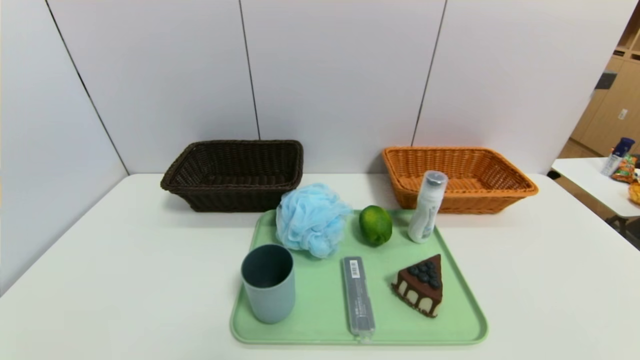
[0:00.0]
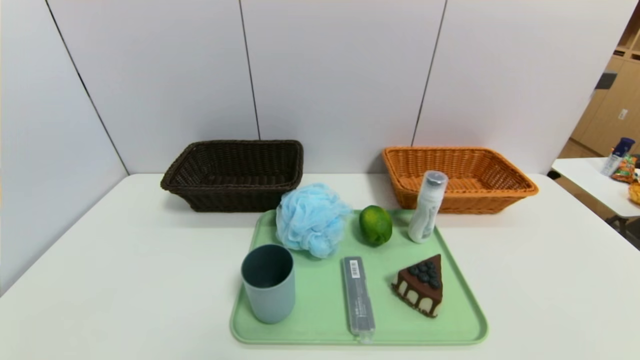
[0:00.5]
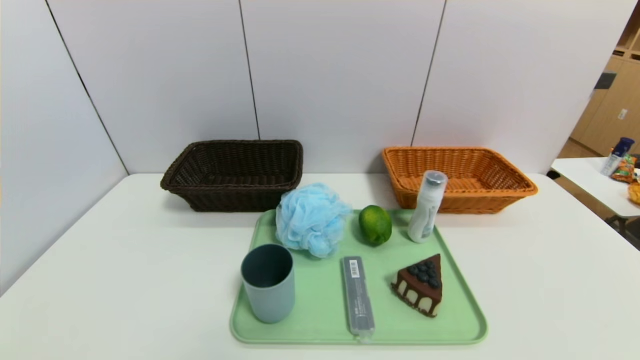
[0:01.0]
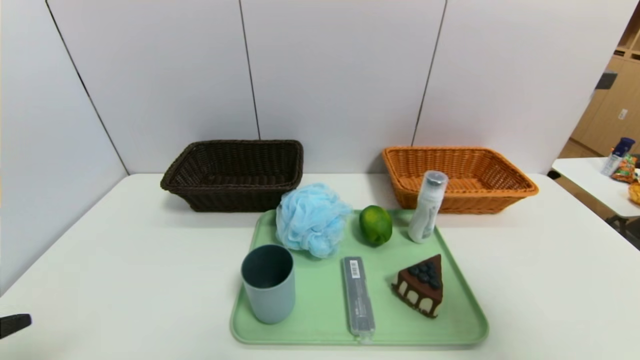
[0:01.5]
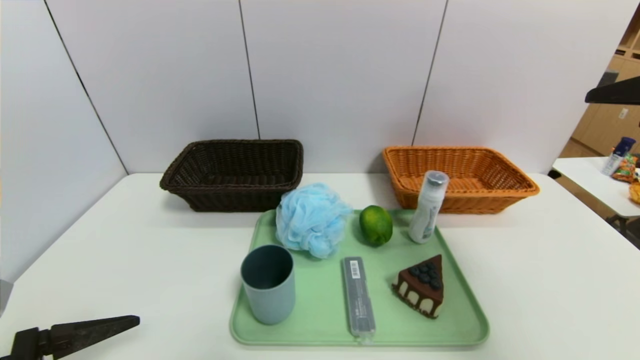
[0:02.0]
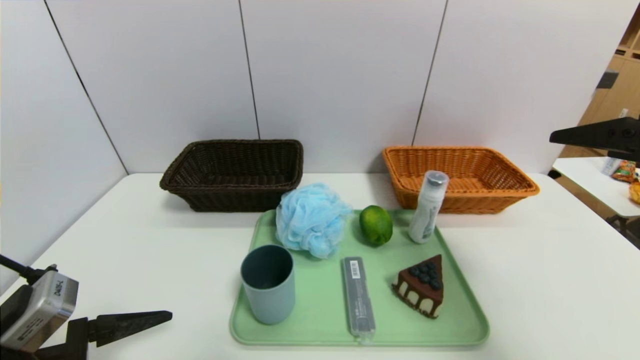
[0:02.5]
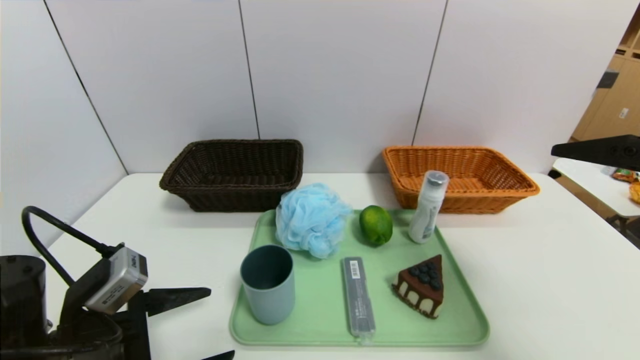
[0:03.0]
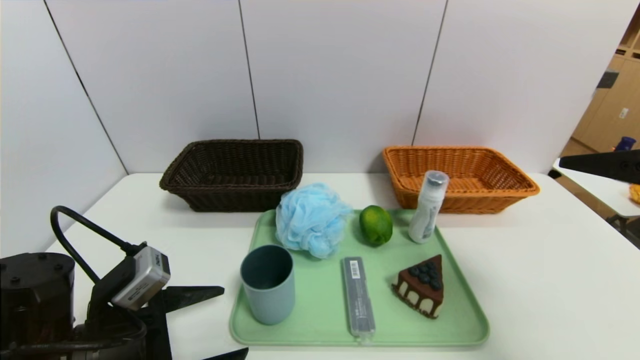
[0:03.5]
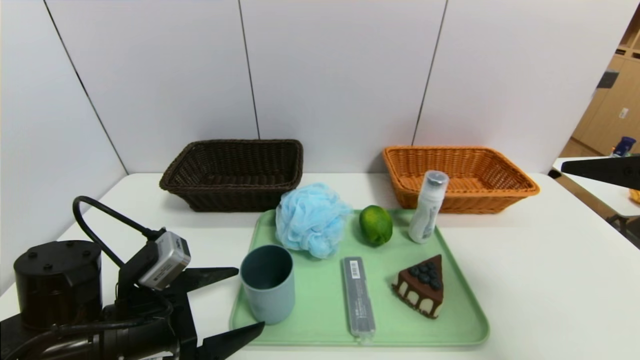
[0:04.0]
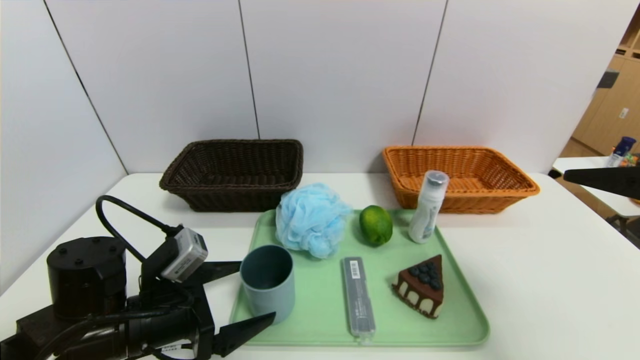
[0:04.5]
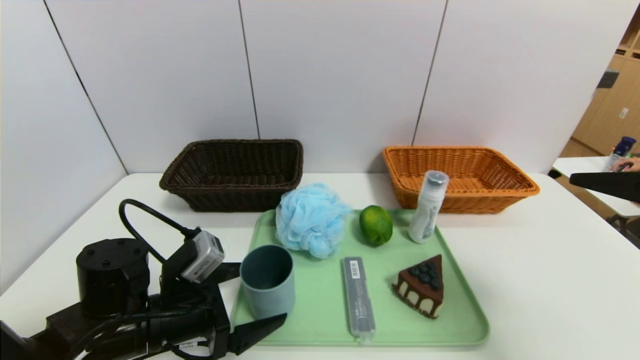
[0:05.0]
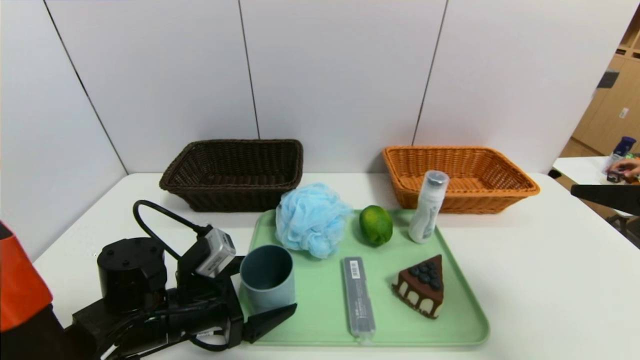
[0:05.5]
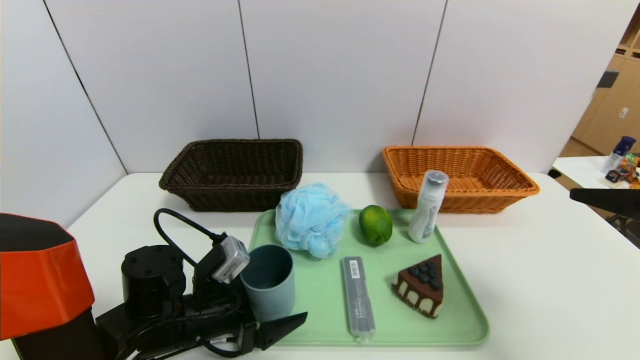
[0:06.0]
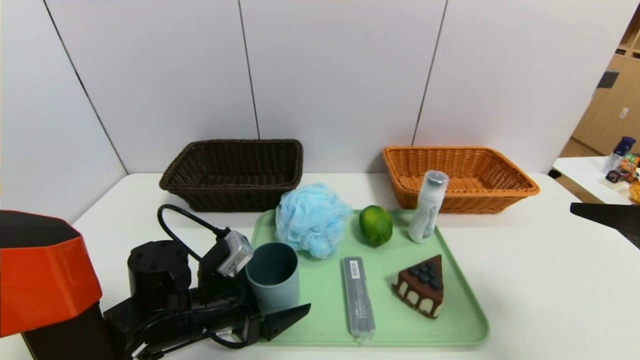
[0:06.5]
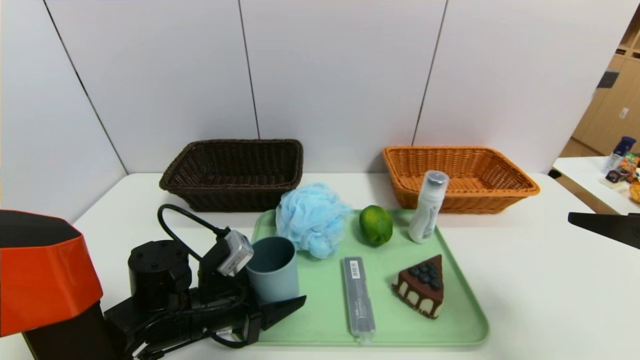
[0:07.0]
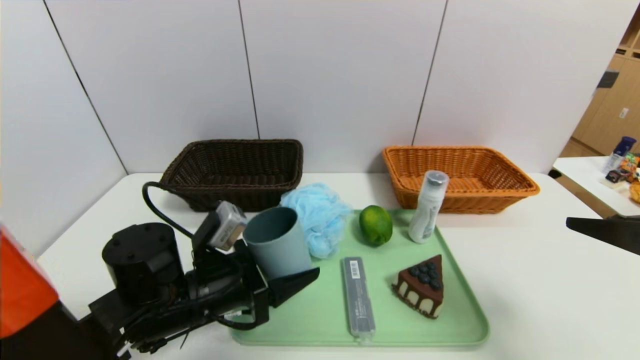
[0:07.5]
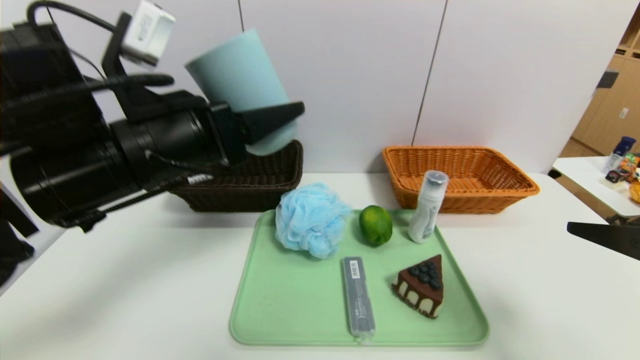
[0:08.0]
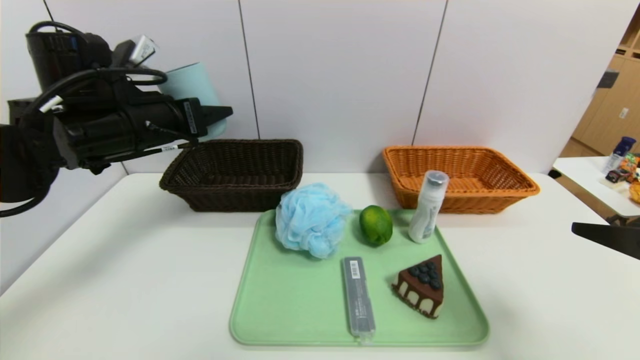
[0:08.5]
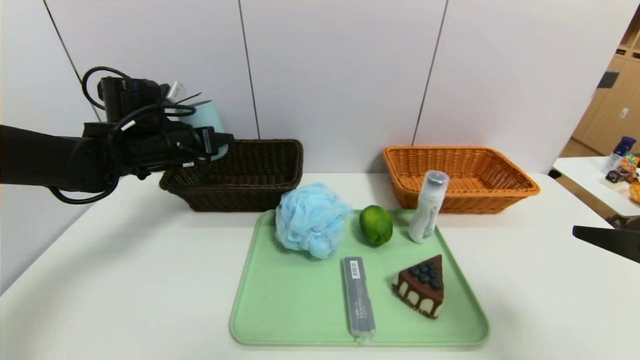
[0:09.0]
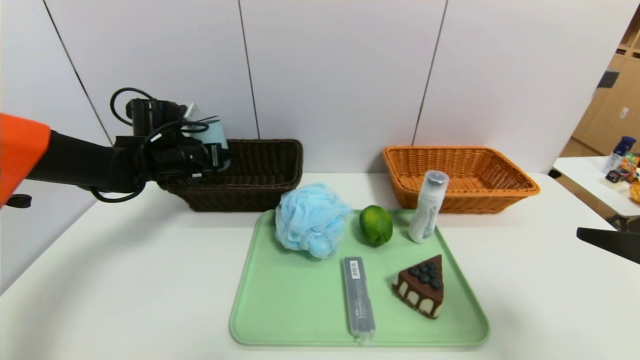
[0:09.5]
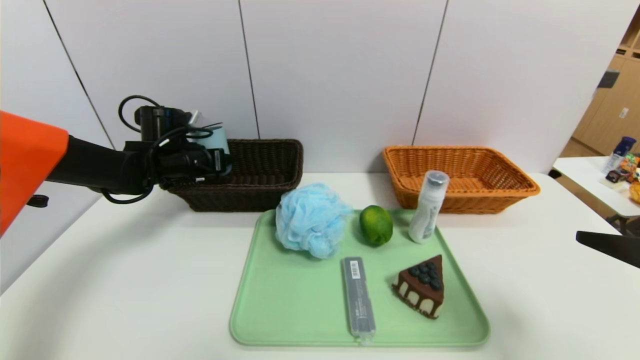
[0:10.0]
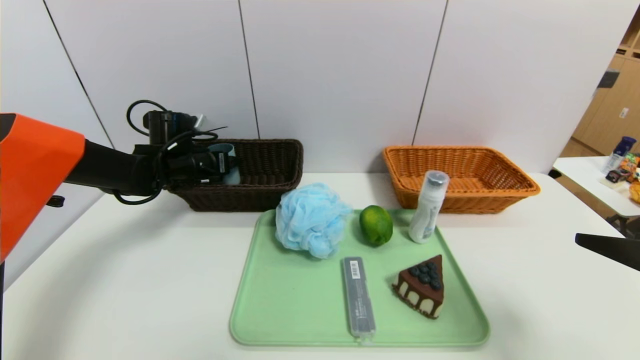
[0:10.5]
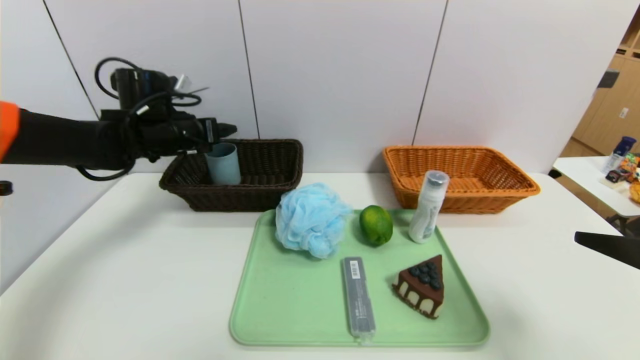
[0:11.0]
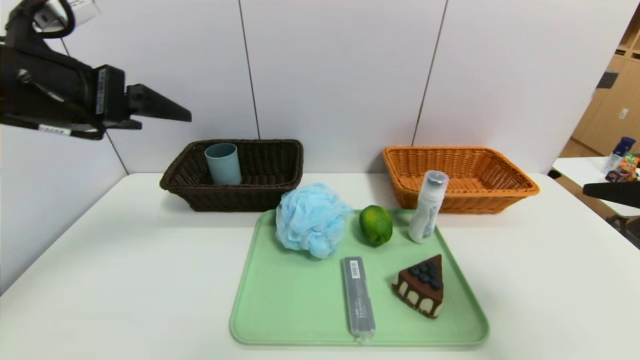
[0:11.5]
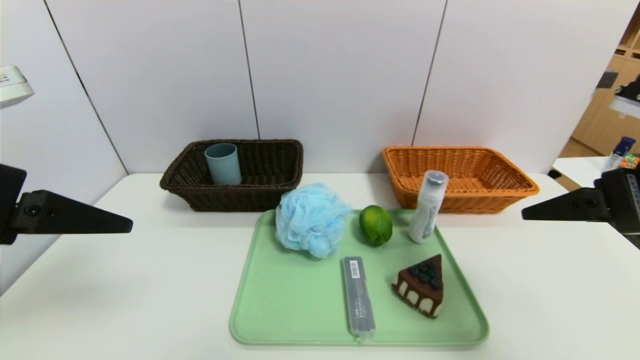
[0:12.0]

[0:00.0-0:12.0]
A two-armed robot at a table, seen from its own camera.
Task of the whole recording: place the food in the right basket with the right gripper, and place the non food items in the left basket with the left gripper.
Step, 0:00.0 to 0:10.5: Grasp the blue cup and put it in the left basket.
0:00.0 to 0:02.0: The right gripper moves upward and forward, about 35 cm. The left gripper is displaced forward and upward by approximately 10 cm.
0:02.0 to 0:04.0: The left gripper shifts about 10 cm forward and to the right, while the right gripper is displaced downward by approximately 5 cm.
0:04.0 to 0:06.0: The left gripper ends up some 10 cm from where it was.
0:06.0 to 0:08.0: The left gripper moves upward, approximately 25 cm, and closes its fingers.
0:08.0 to 0:10.0: The left gripper is displaced forward, downward and to the left by some 25 cm.
0:10.0 to 0:12.0: The right gripper moves forward, about 5 cm; the left gripper travels backward and upward by about 35 cm, and opens.

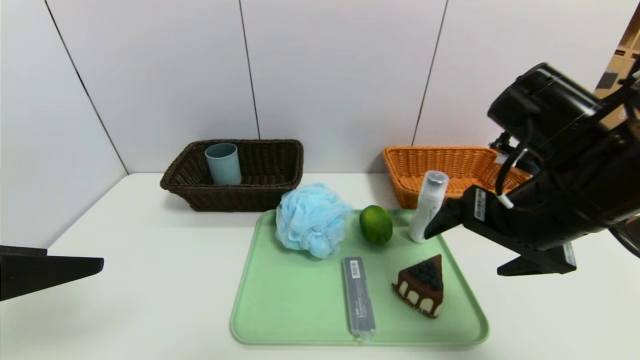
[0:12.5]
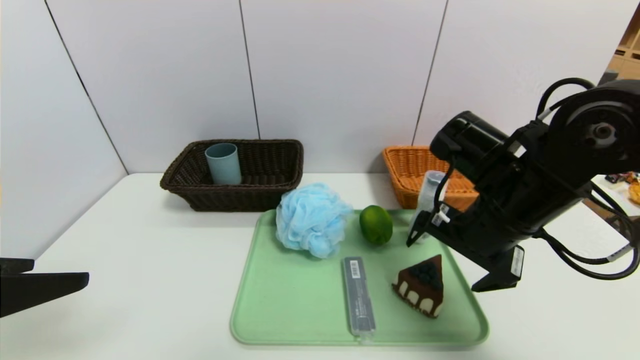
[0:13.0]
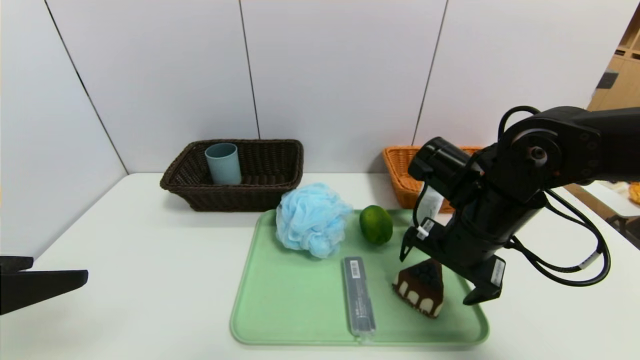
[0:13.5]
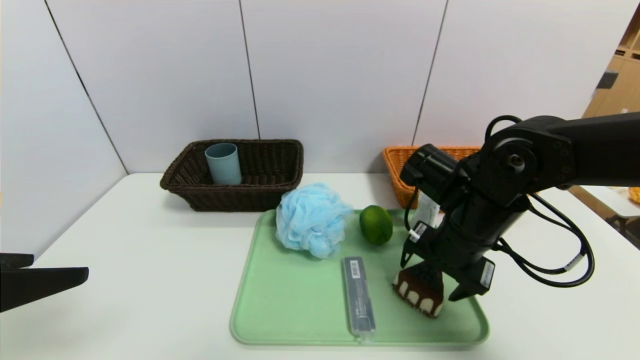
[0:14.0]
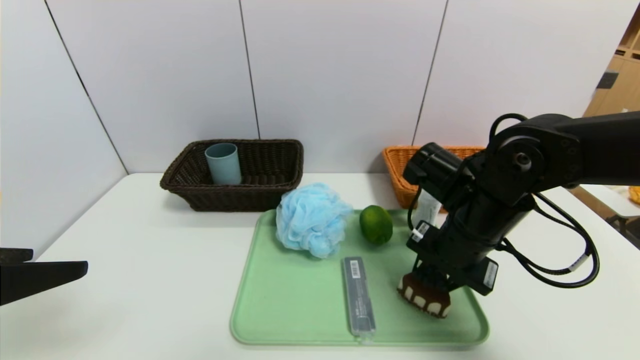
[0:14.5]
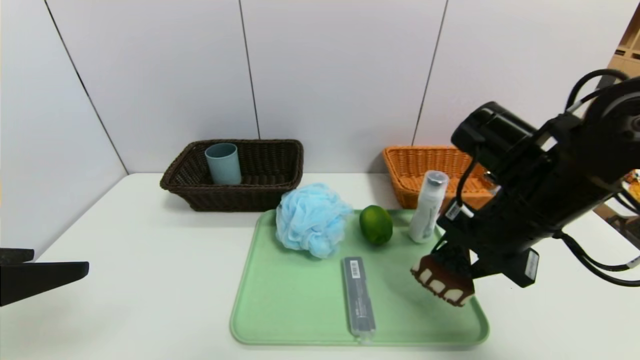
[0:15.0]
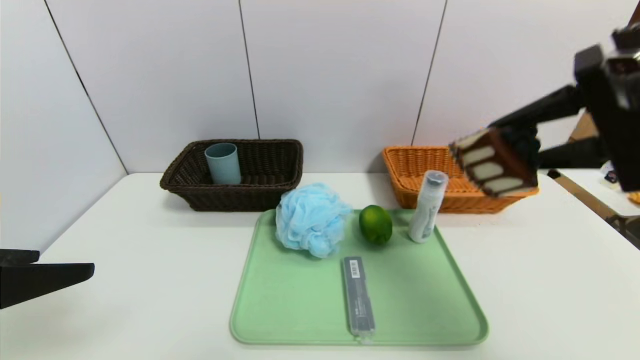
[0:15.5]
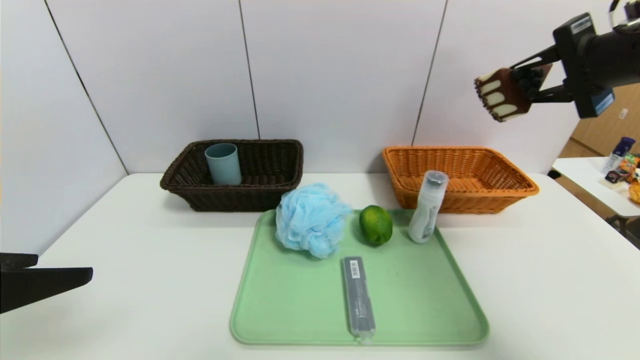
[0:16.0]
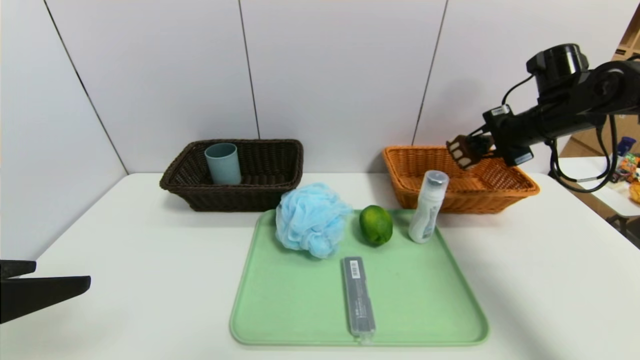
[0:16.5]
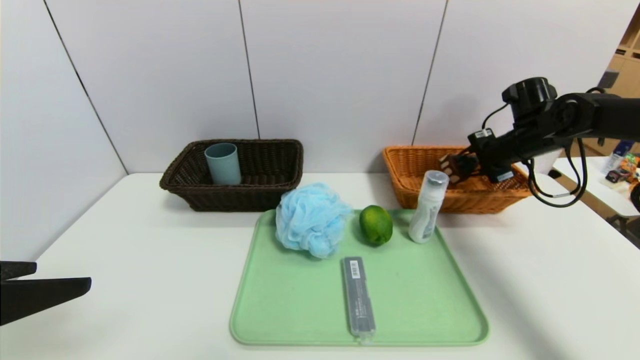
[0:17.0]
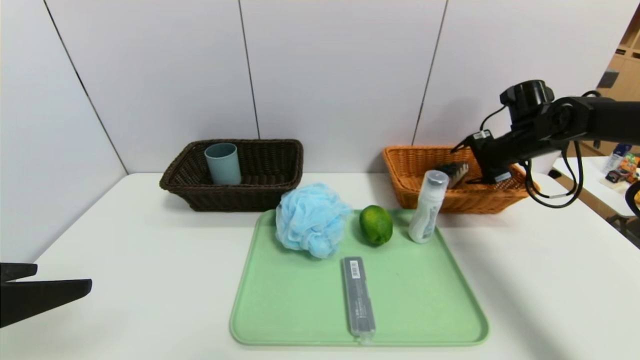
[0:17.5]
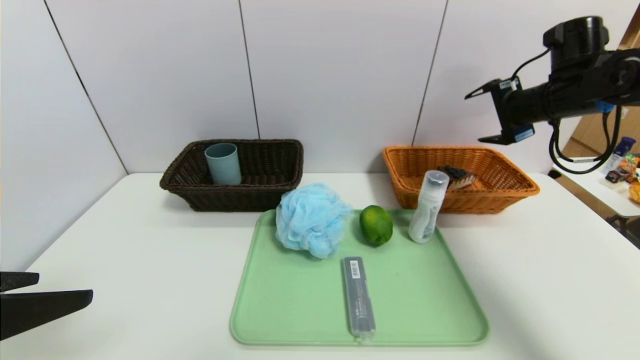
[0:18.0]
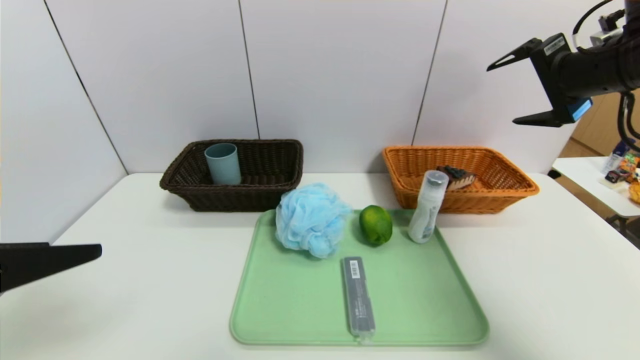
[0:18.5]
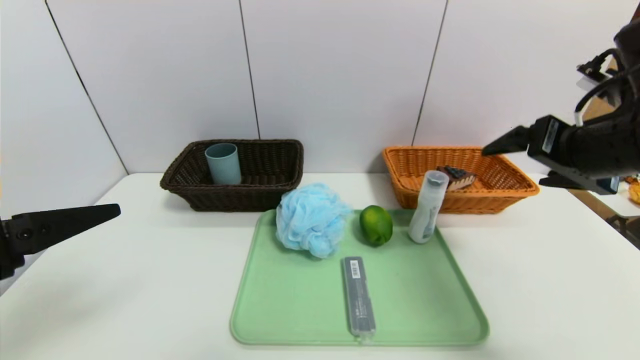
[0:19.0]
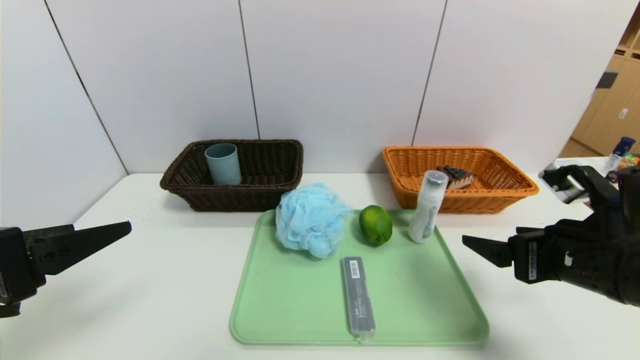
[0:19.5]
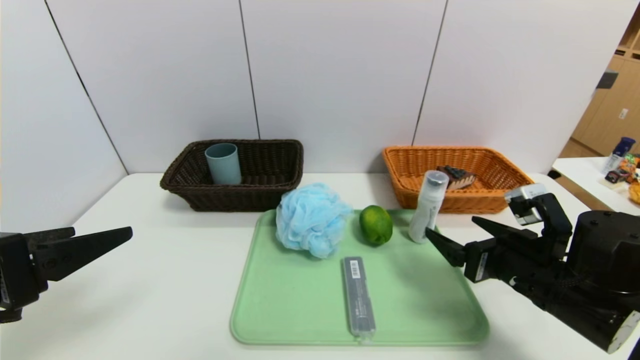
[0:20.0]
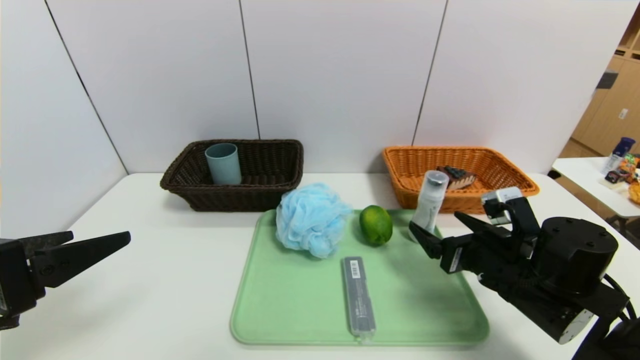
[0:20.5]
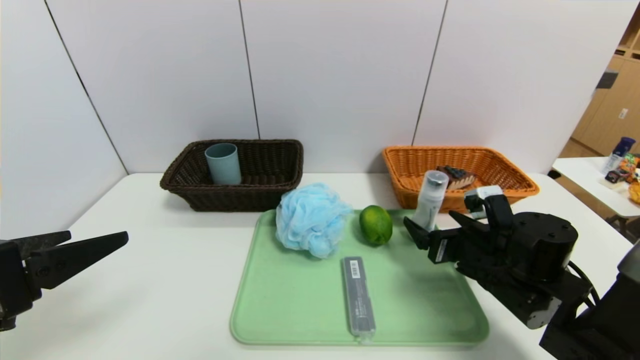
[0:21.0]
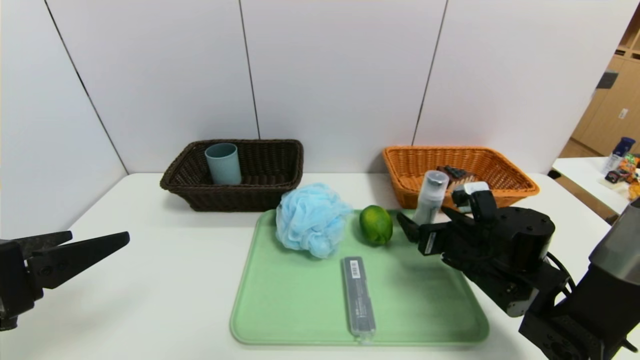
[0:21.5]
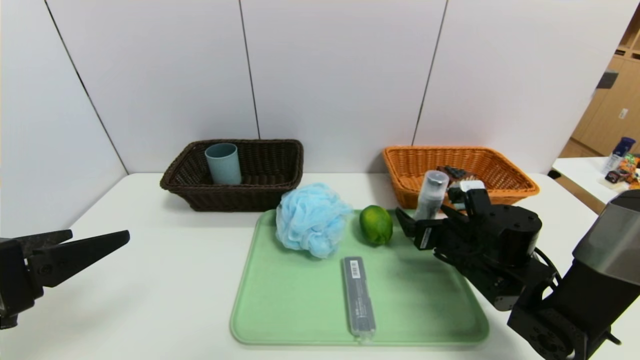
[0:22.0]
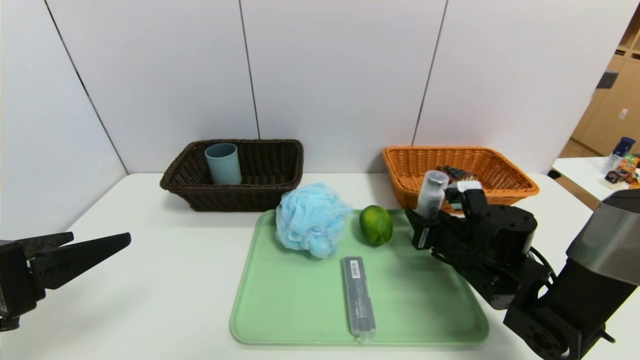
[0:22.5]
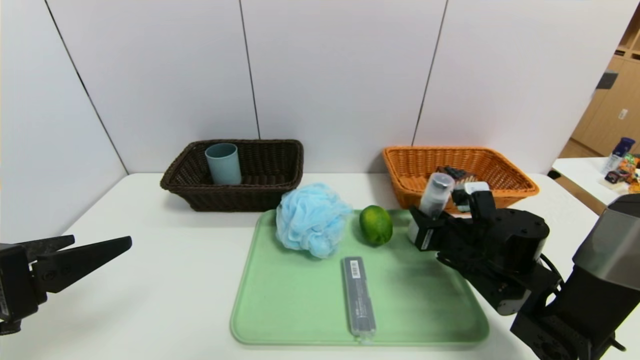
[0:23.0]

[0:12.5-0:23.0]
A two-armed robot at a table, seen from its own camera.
Task of the whole recording: place the food in the right basket with the right gripper, and place the non food items in the left basket with the left gripper.
Step, 0:12.5 to 0:17.5: Grasp the triangle cake and put it in the right basket.
0:12.5 to 0:14.5: The right gripper shifts about 10 cm downward and forward, and closes.
0:14.5 to 0:16.5: The right gripper shifts approximately 25 cm to the right, forward and upward.
0:16.5 to 0:19.0: The right gripper travels backward by roughly 20 cm, and opens up.
0:19.0 to 0:21.0: The right gripper moves downward, some 20 cm.
0:21.0 to 0:23.0: The right gripper closes up.
